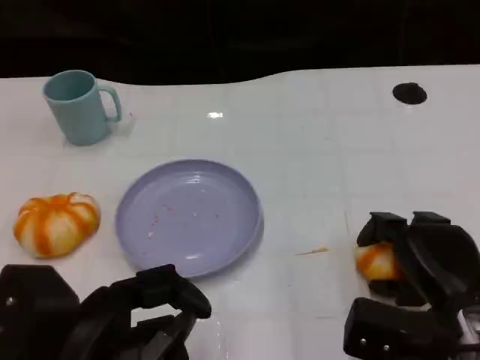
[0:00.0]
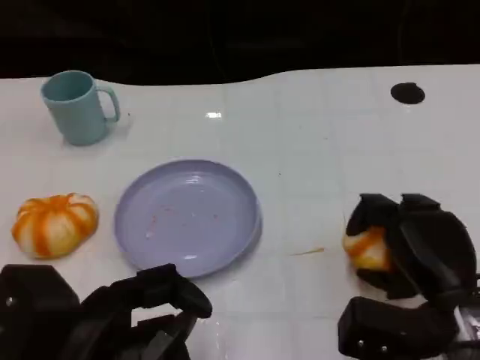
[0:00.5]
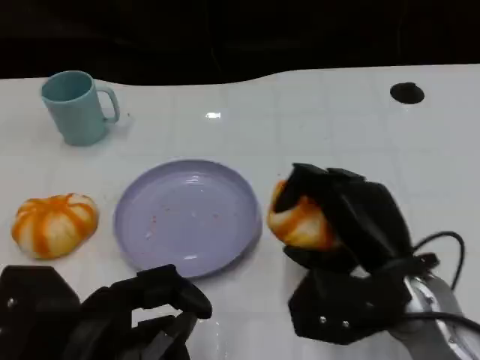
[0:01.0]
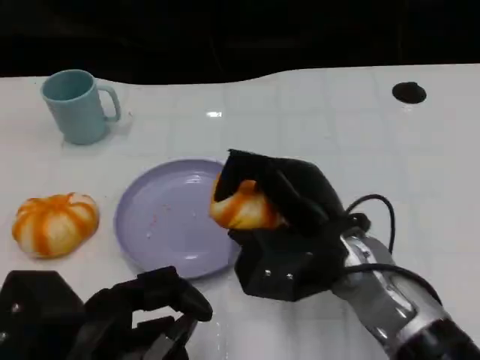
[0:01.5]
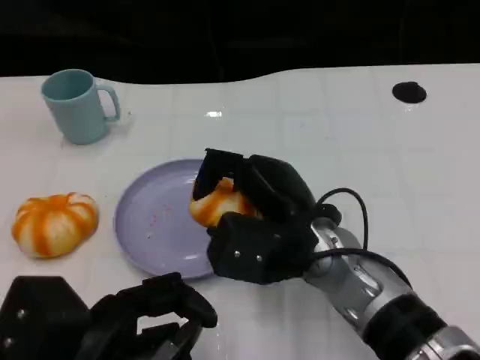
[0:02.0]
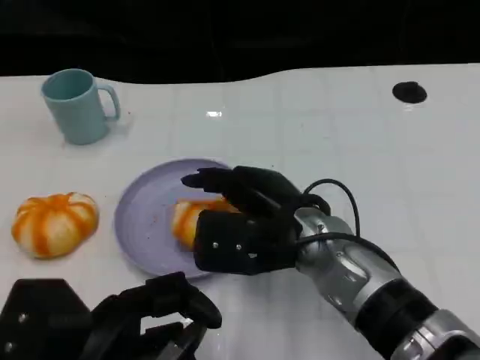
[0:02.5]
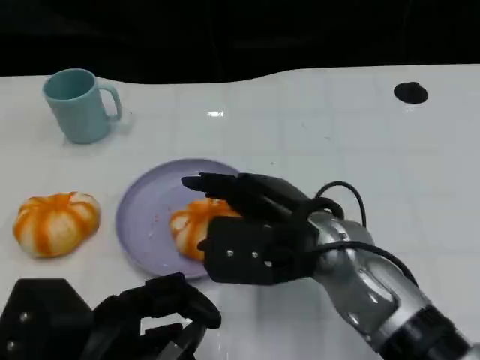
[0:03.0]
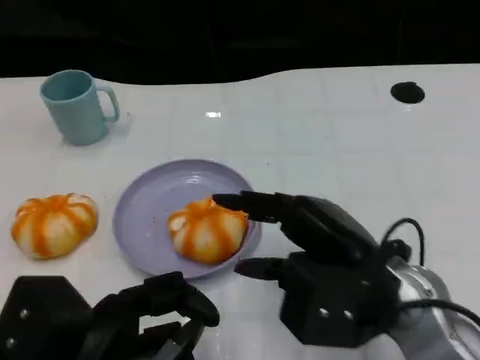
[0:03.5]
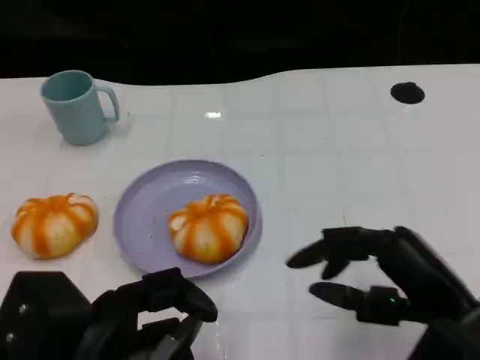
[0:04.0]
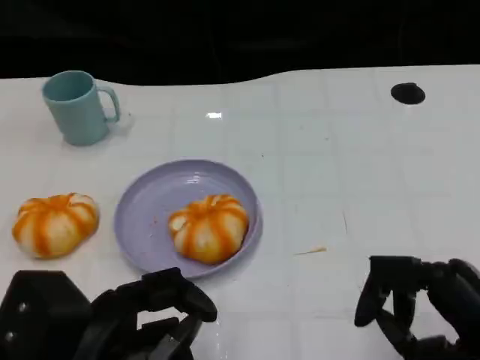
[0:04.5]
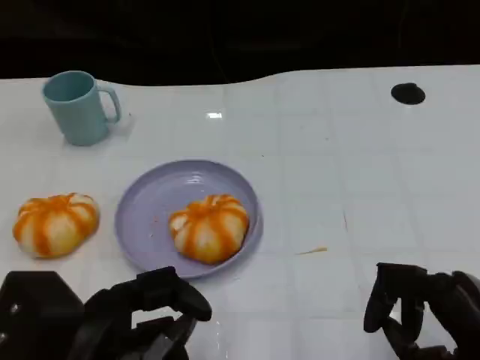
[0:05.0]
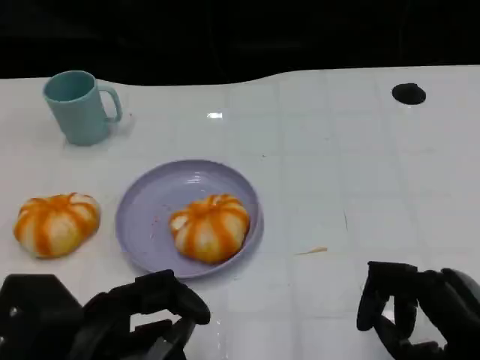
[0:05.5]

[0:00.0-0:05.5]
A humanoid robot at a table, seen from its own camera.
Task of the whole recording: Grasp the bread from the table and place it into the plate.
0:00.0 to 0:02.0: The right hand shifts some 15 cm to the left.
0:02.0 to 0:03.5: The right hand moves to the right and backward, some 10 cm.
0:03.5 to 0:05.5: The right hand goes some 10 cm to the right and backward.

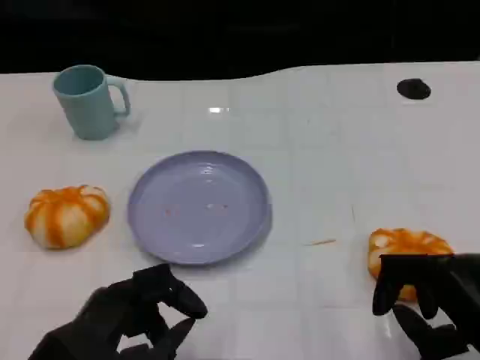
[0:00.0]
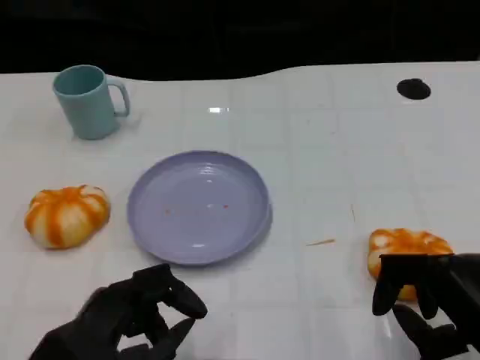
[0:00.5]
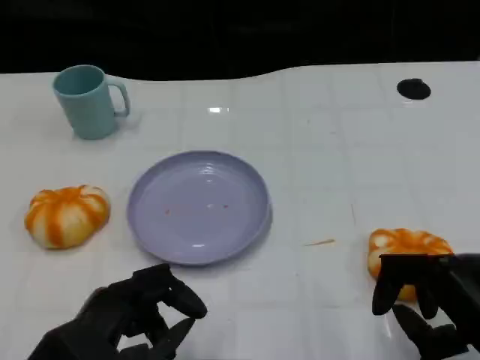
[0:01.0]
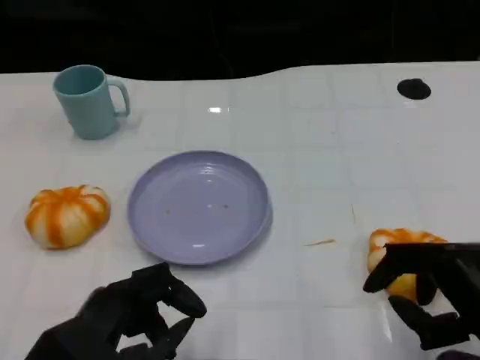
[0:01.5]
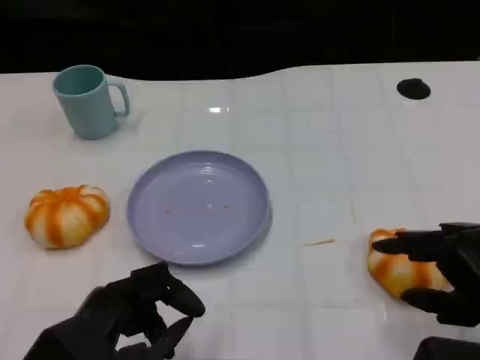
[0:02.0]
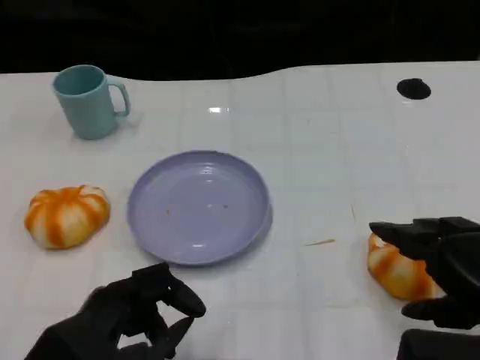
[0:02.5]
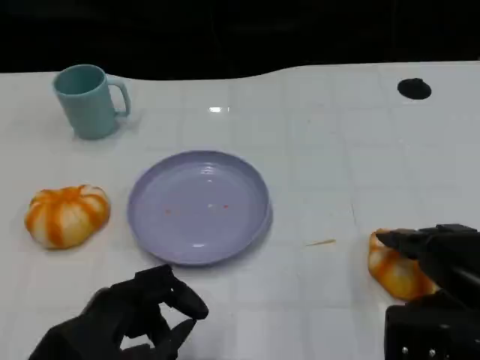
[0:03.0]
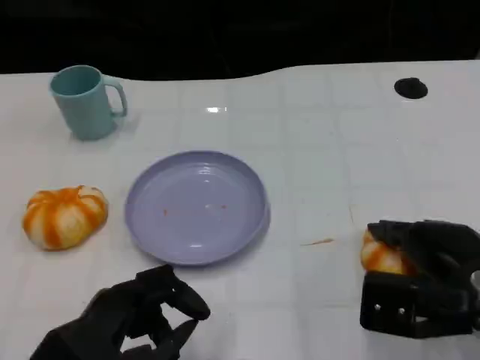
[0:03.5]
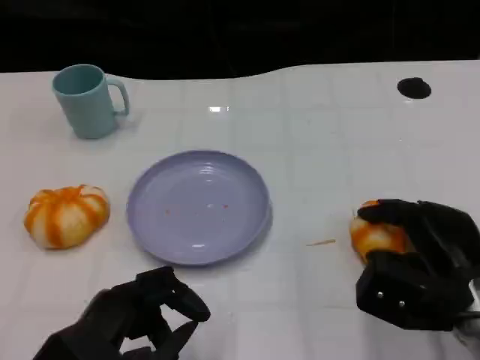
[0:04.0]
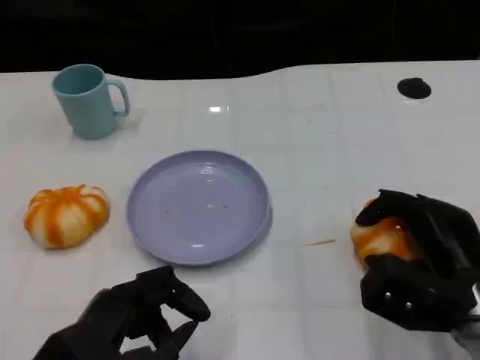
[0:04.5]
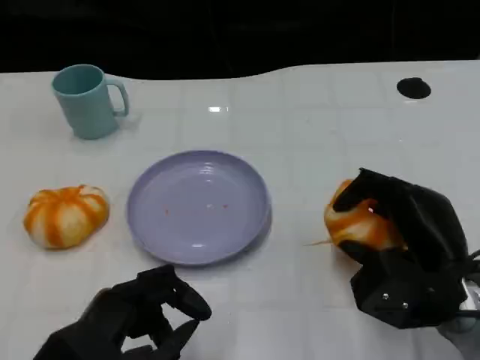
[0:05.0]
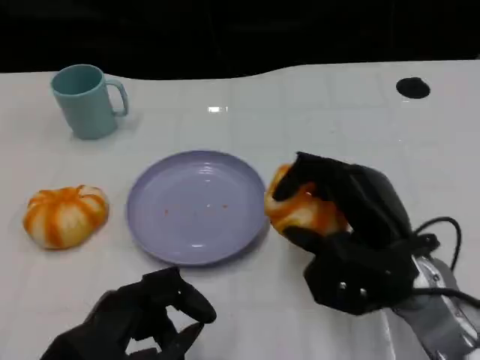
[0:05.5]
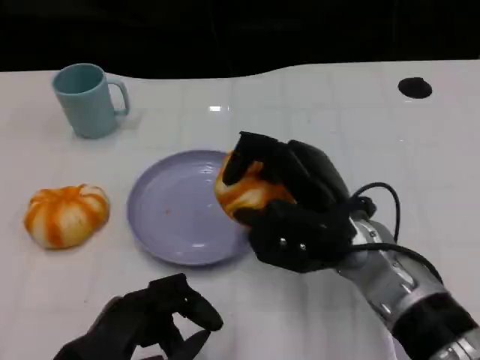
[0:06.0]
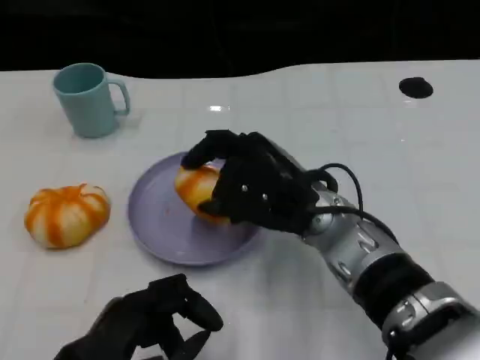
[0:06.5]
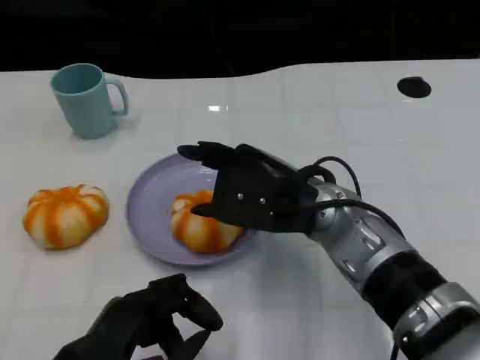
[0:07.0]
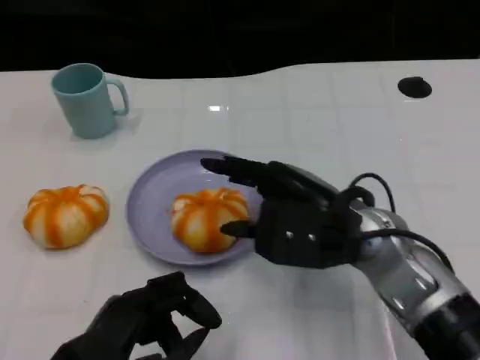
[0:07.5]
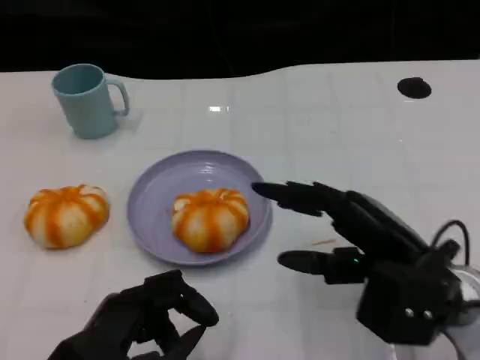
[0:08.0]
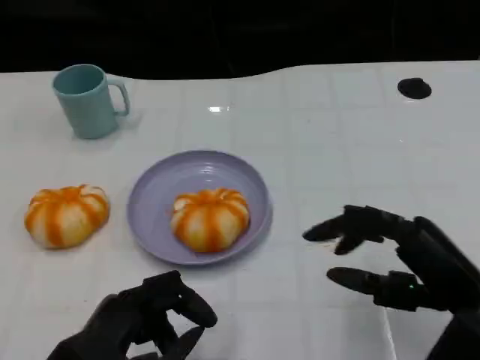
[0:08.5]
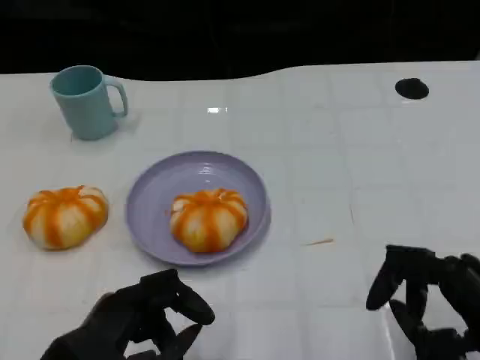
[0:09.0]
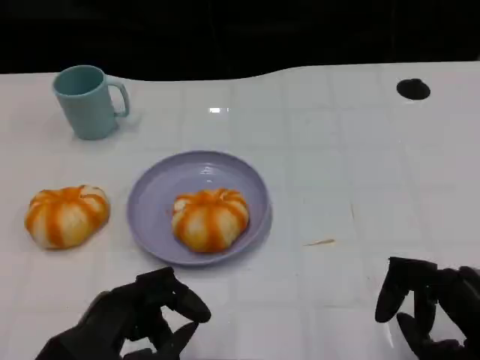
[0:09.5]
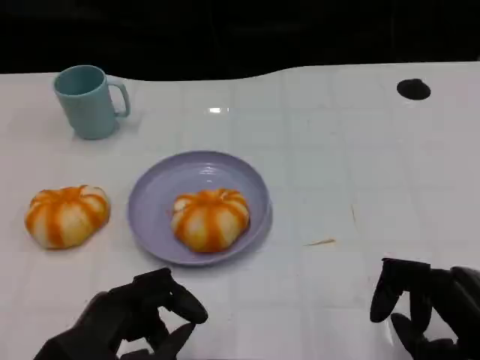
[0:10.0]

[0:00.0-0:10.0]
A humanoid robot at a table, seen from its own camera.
Task of the whole recording: Grasp the bread from the table and place it into the plate.
0:00.0 to 0:02.0: The hands move only a little.
0:02.0 to 0:04.0: The right hand shifts about 10 cm forward and downward.
0:04.0 to 0:06.0: The right hand is displaced to the left by approximately 15 cm.
0:06.0 to 0:08.0: The right hand heads to the right and backward, covering approximately 10 cm.
0:08.0 to 0:10.0: The right hand shifts approximately 10 cm backward and to the right.
